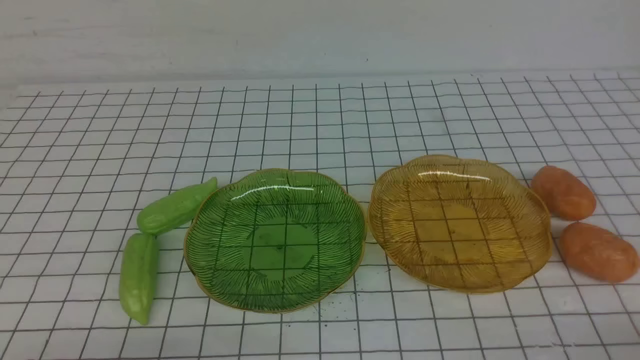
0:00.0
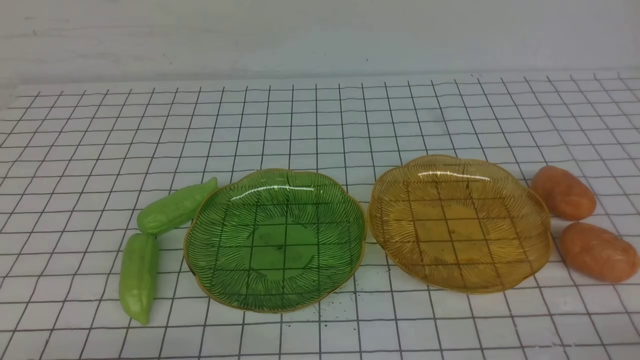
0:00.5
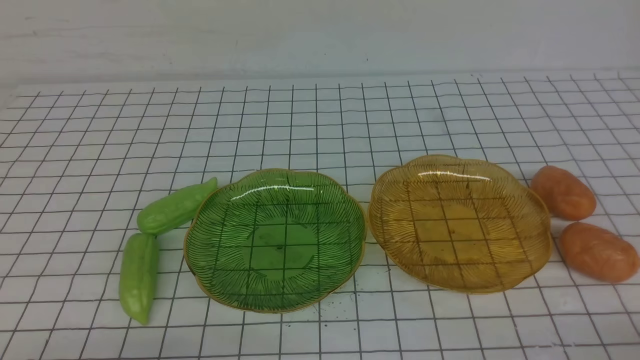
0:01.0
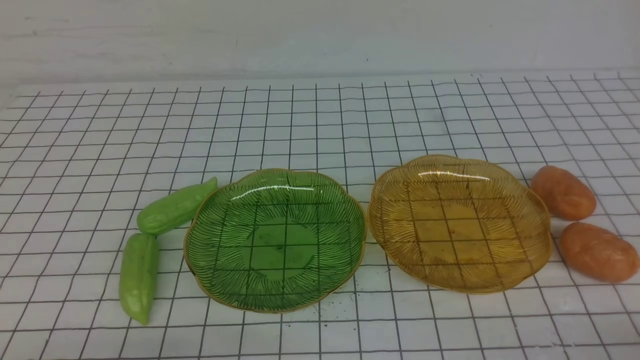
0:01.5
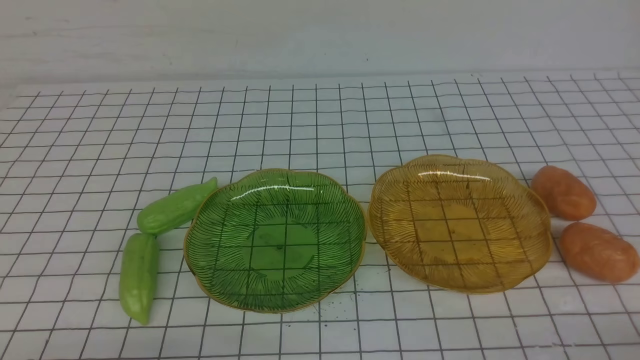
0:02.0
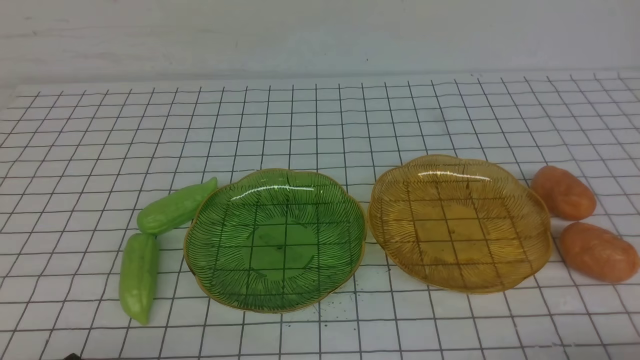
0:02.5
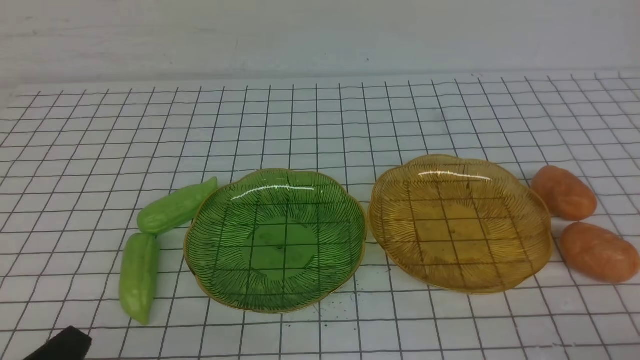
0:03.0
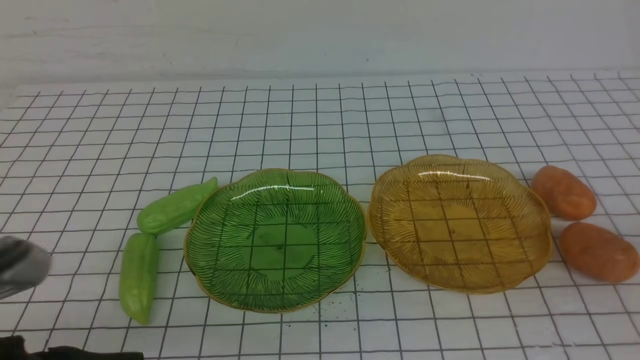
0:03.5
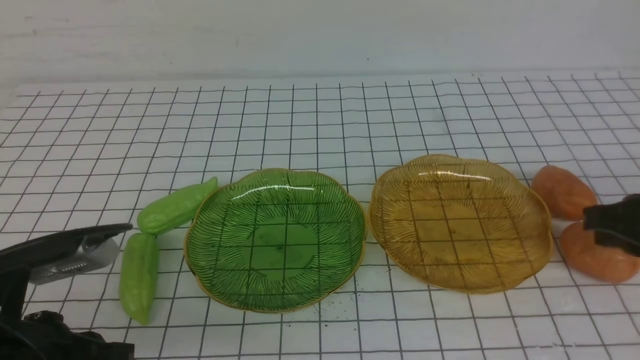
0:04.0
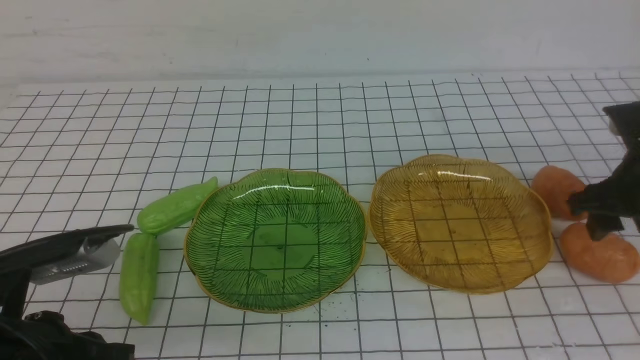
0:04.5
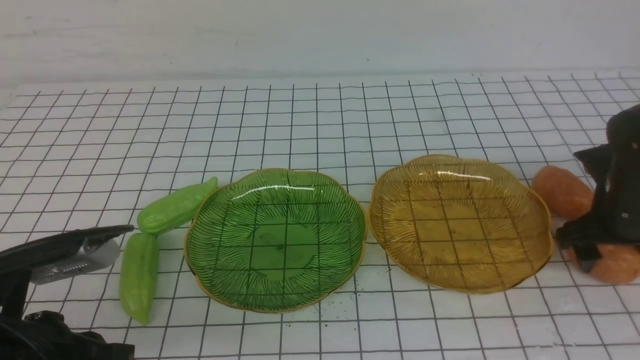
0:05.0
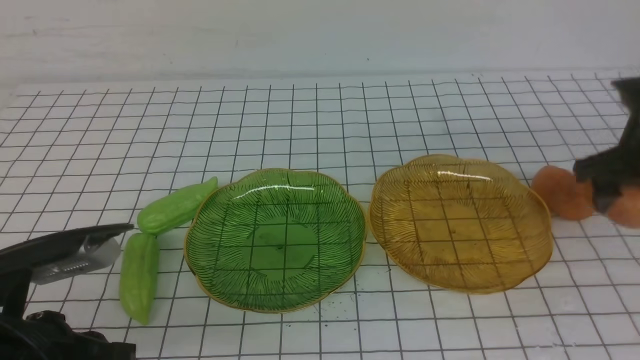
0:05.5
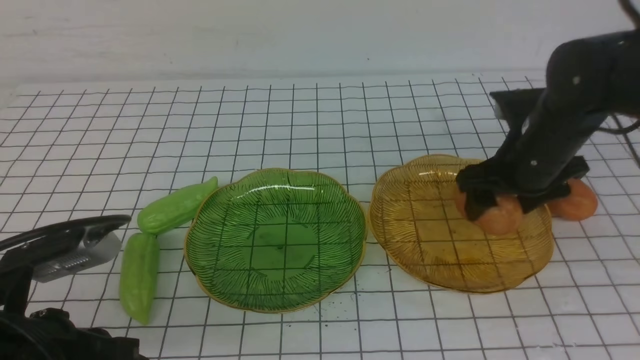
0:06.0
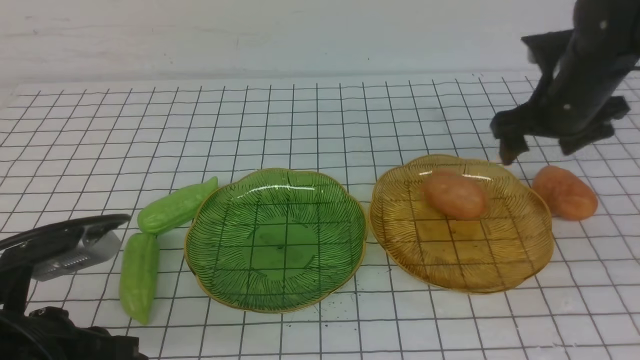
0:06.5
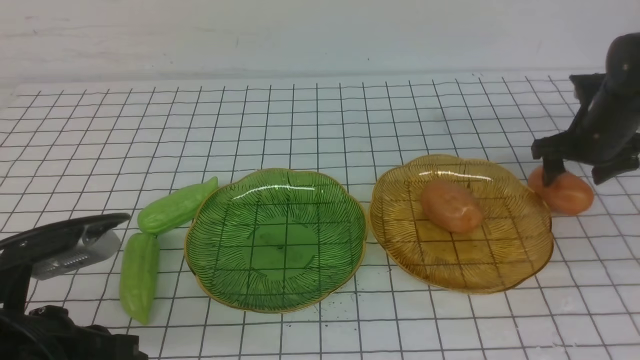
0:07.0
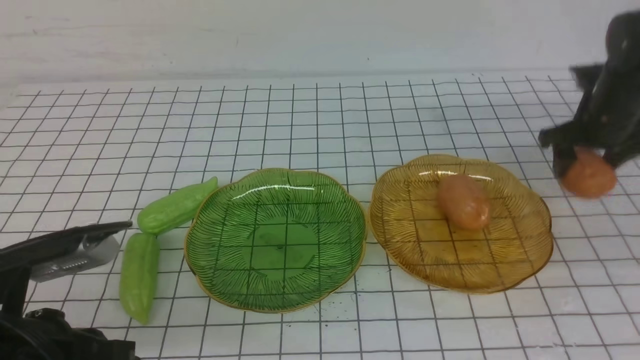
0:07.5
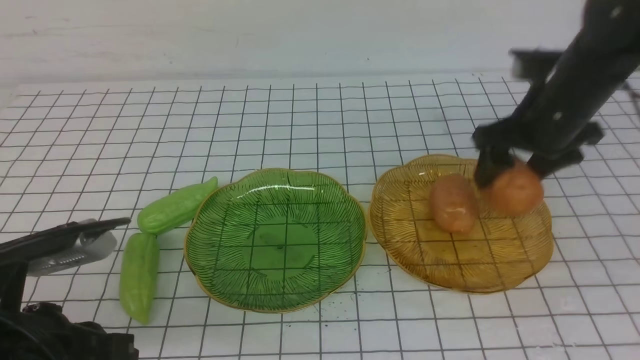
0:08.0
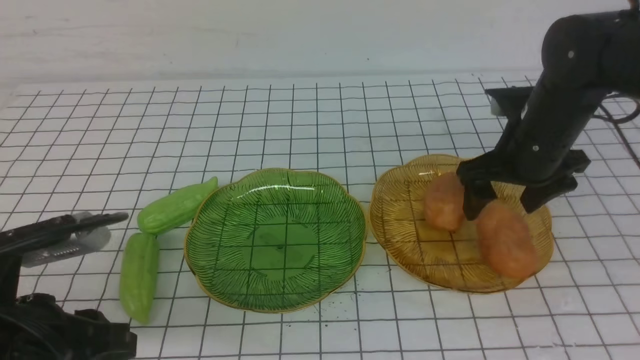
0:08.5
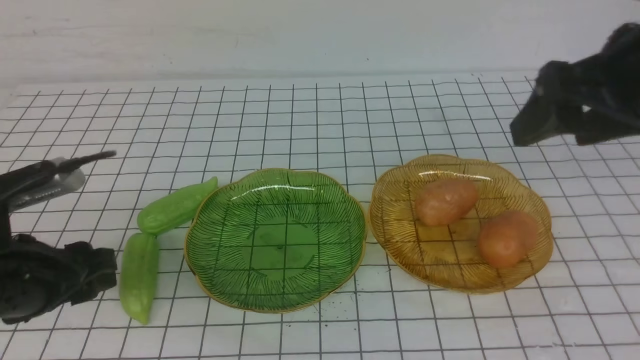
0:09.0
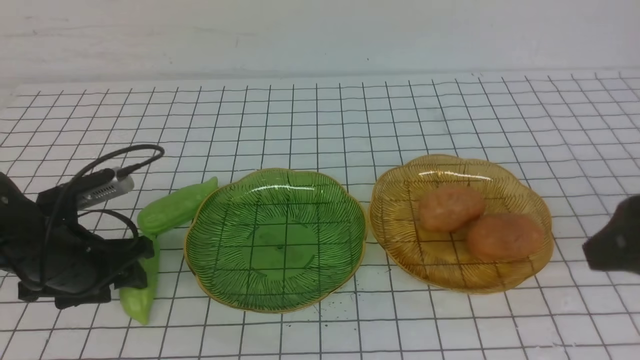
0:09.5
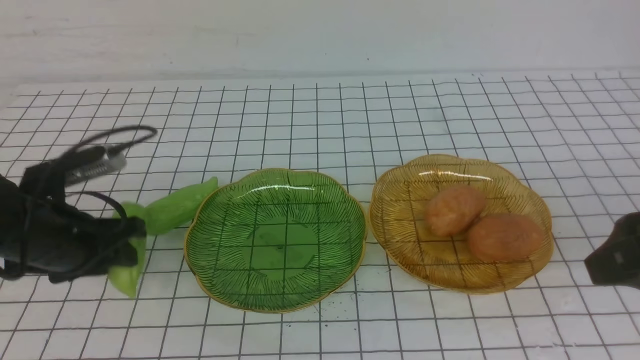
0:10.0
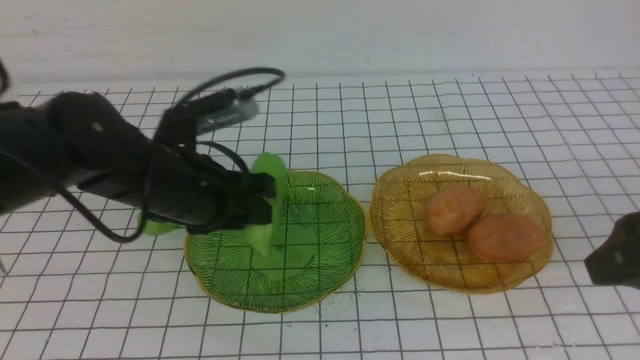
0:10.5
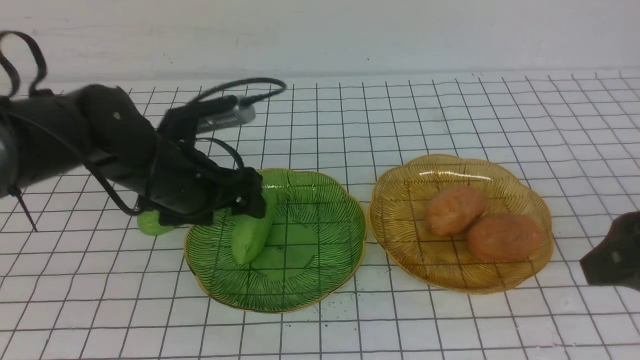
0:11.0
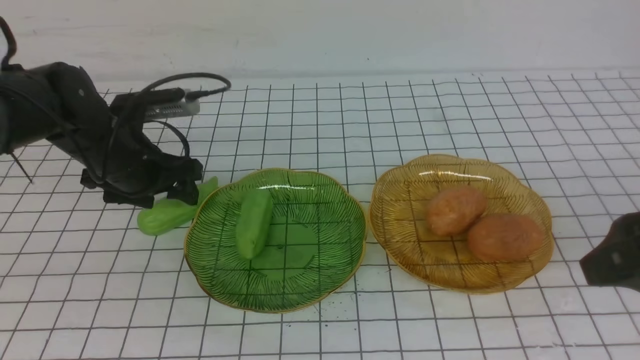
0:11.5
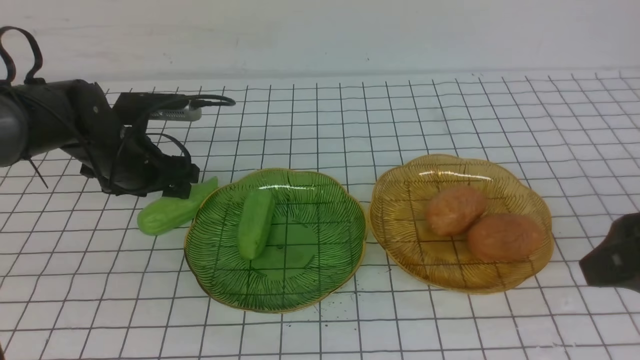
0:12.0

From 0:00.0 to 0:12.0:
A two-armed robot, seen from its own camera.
Step, from 0:00.0 to 0:06.0: Grab a potato with your right arm and put it on the right plate.
Step, from 0:06.5 to 0:08.0: Grab a potato with your right arm and put it on the right plate.
From 0:00.0 to 0:02.0: Both grippers stay put.
From 0:02.0 to 0:04.0: The left gripper goes approximately 10 cm forward and upward. Meanwhile the right gripper is displaced forward and upward by about 20 cm.
From 0:04.0 to 0:06.0: The right gripper heads forward and to the left, covering roughly 15 cm, and opens its fingers.
From 0:06.0 to 0:08.0: The right gripper moves about 10 cm to the right and comes back.
From 0:08.0 to 0:10.0: The right gripper is displaced backward by some 20 cm. The left gripper goes roughly 15 cm forward, and opens up.
From 0:10.0 to 0:12.0: The left gripper shifts roughly 10 cm forward, and opens its fingers.

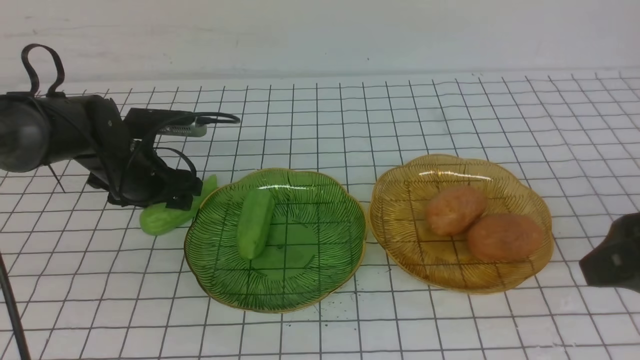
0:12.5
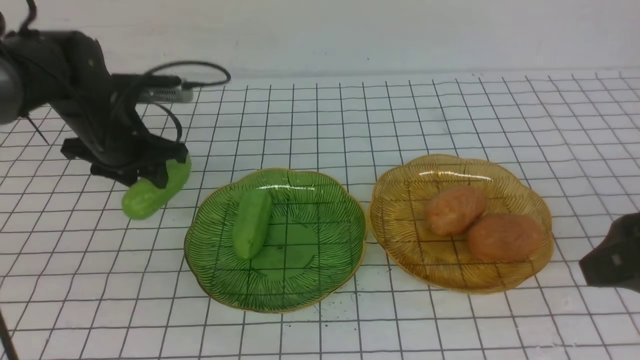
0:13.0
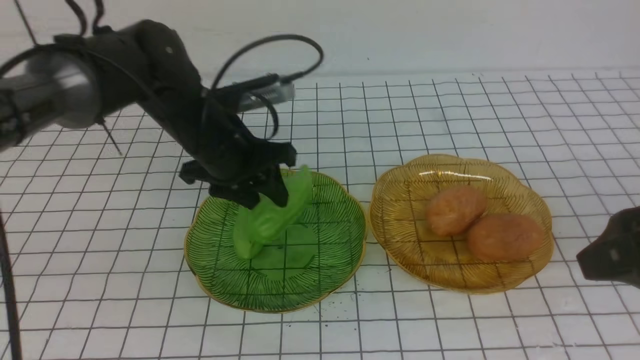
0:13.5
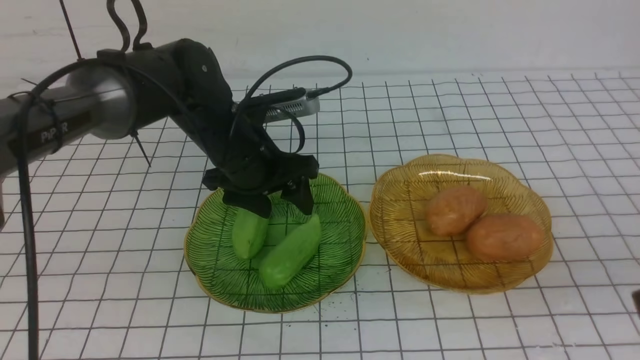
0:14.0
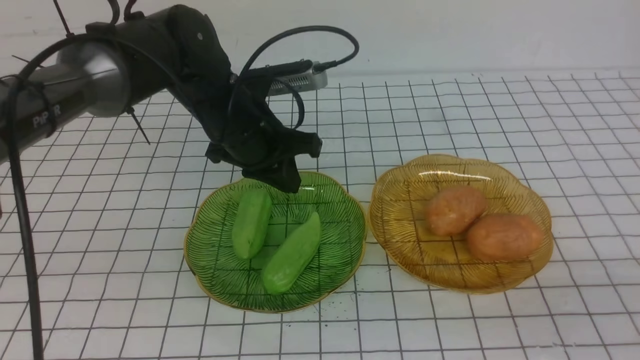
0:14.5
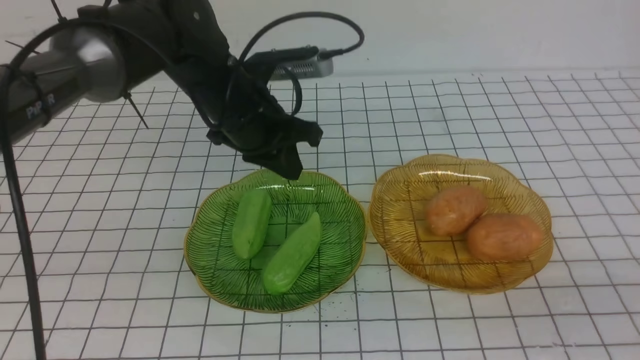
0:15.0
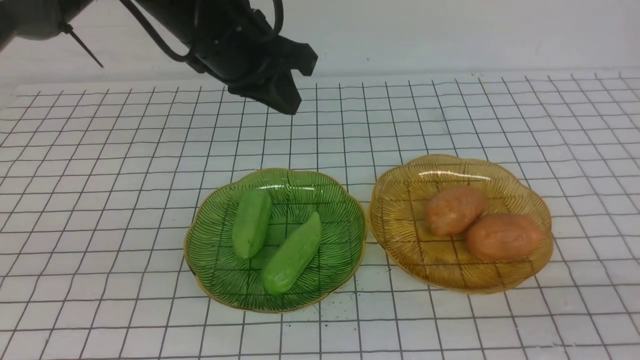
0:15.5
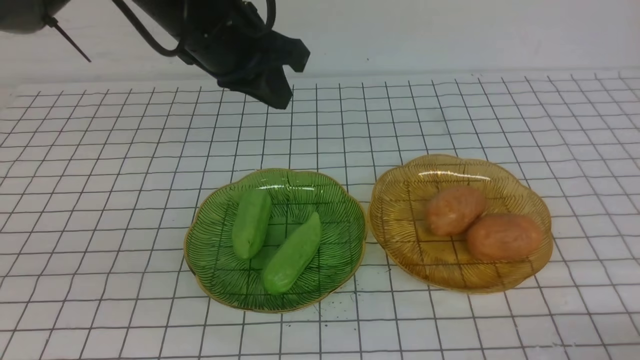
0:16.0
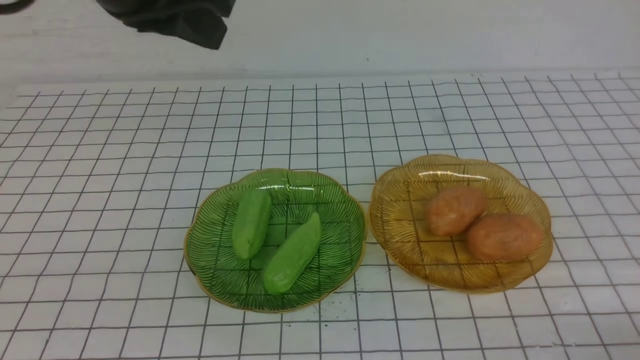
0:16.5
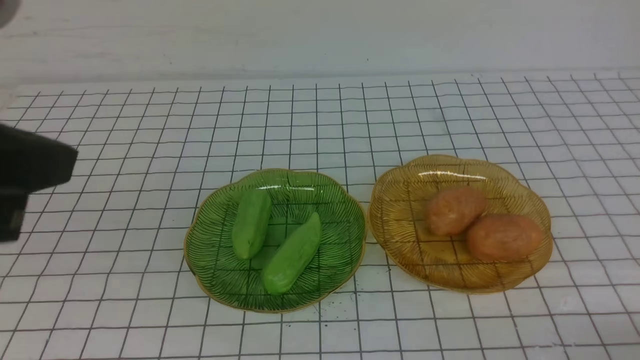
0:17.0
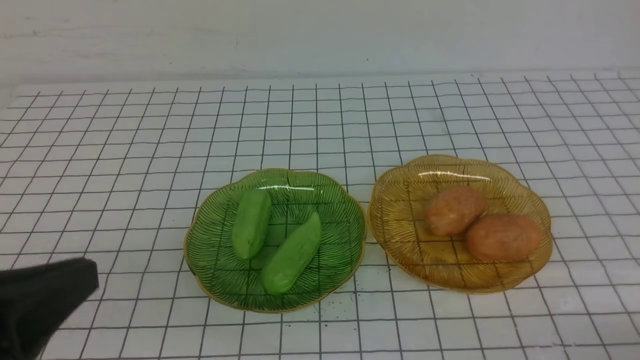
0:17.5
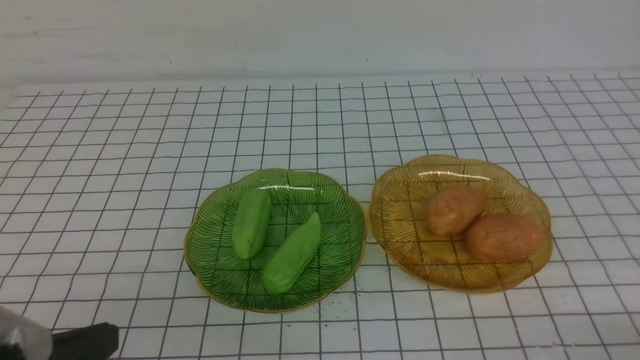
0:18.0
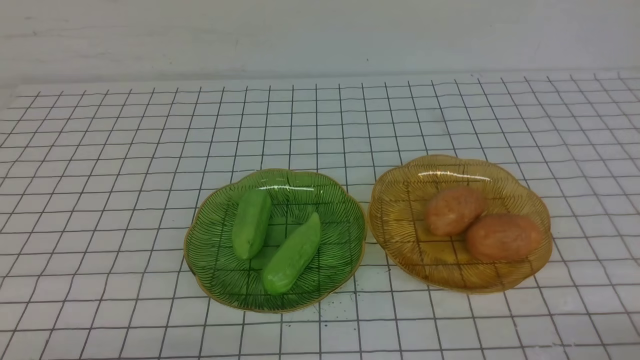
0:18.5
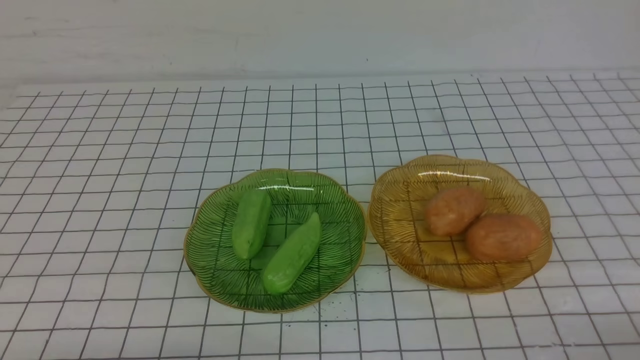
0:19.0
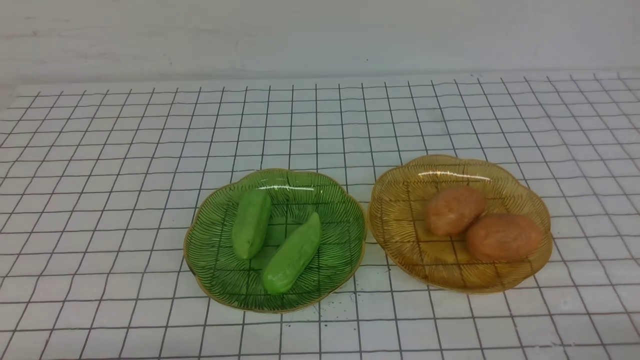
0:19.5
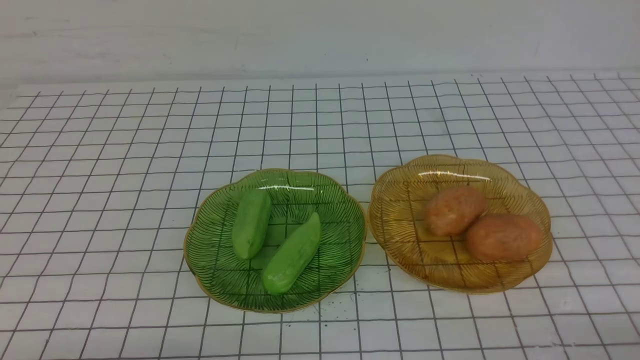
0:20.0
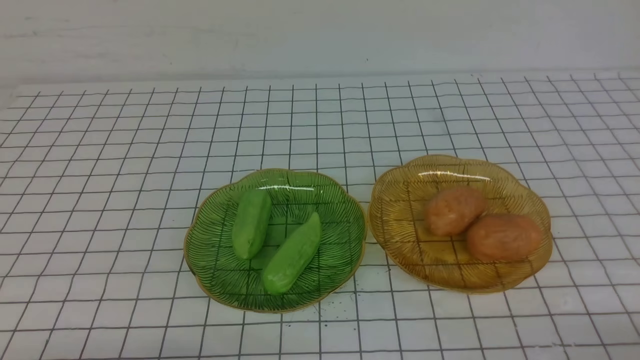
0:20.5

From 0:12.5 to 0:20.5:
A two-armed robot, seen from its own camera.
From 0:12.5 to 0:14.5: The right gripper heads backward and downward, covering some 15 cm, and closes up. Meanwhile the left gripper is displaced to the right and upward by approximately 15 cm, and closes up.
From 0:14.5 to 0:16.5: The right gripper moves downward, roughly 10 cm. The left gripper goes roughly 25 cm upward and backward.
From 0:16.5 to 0:18.5: The left gripper shifts roughly 35 cm downward and backward.
